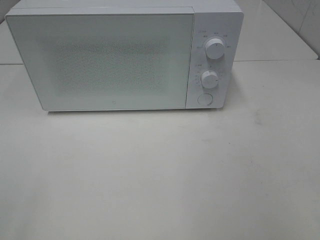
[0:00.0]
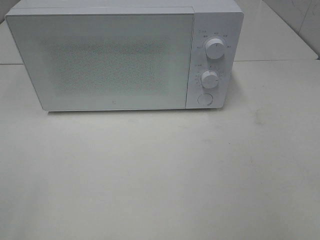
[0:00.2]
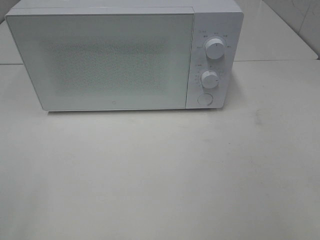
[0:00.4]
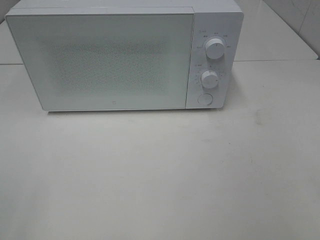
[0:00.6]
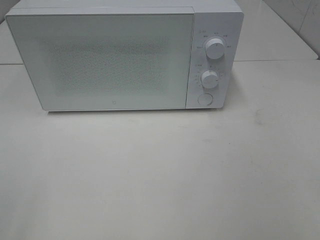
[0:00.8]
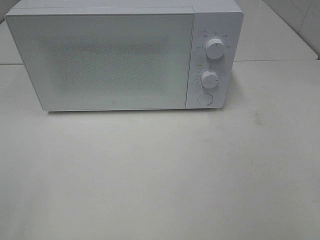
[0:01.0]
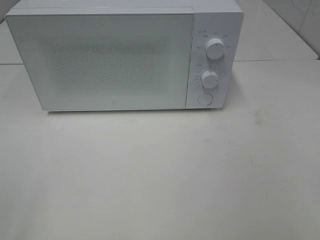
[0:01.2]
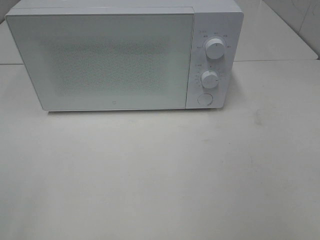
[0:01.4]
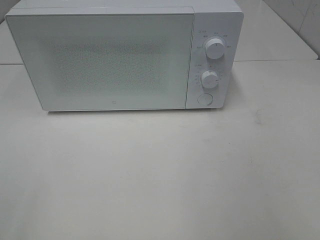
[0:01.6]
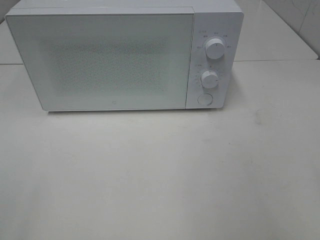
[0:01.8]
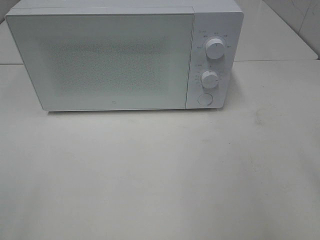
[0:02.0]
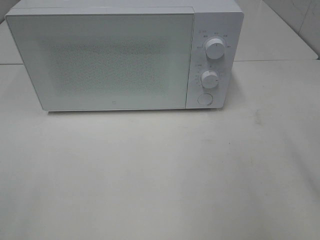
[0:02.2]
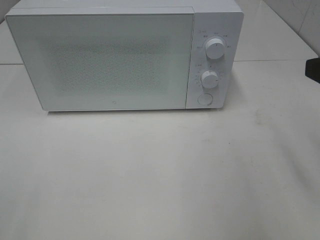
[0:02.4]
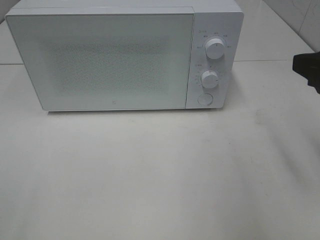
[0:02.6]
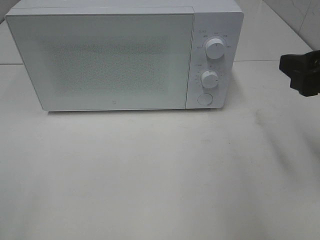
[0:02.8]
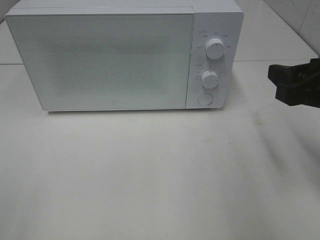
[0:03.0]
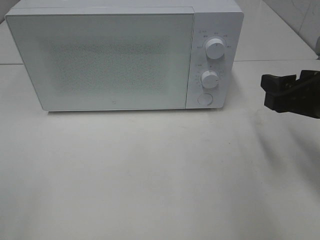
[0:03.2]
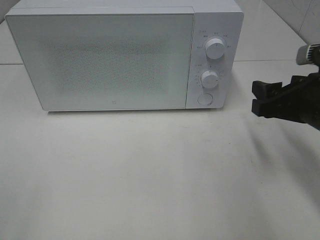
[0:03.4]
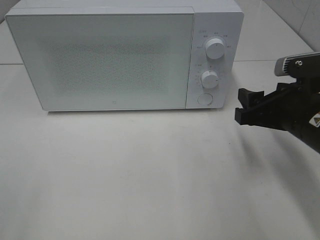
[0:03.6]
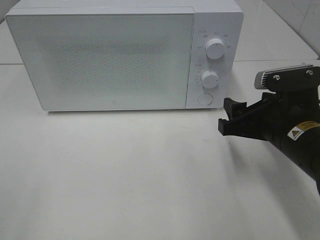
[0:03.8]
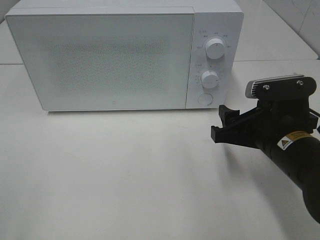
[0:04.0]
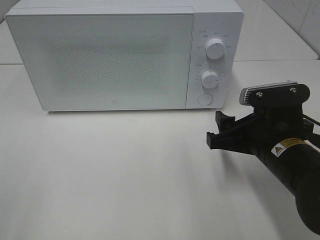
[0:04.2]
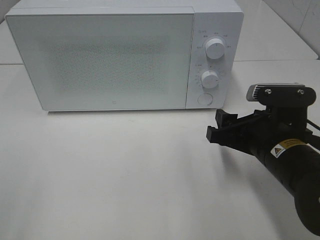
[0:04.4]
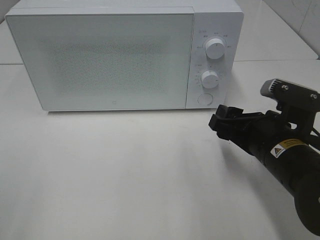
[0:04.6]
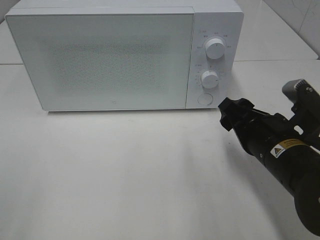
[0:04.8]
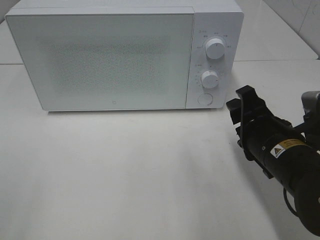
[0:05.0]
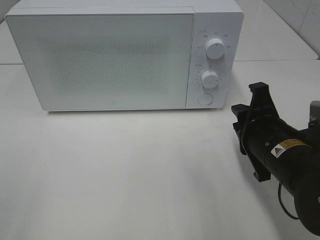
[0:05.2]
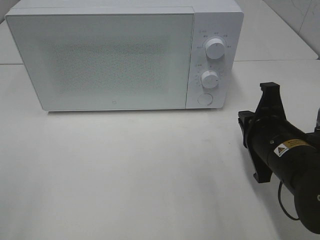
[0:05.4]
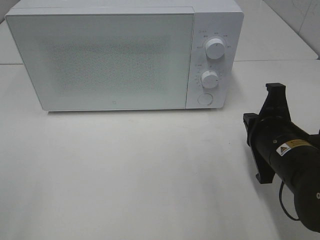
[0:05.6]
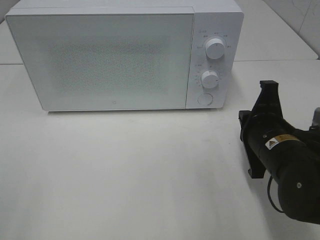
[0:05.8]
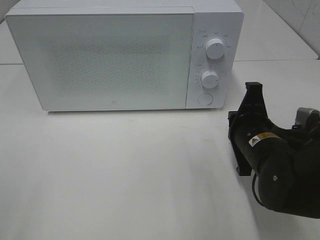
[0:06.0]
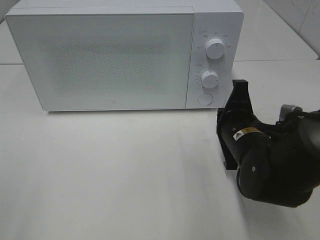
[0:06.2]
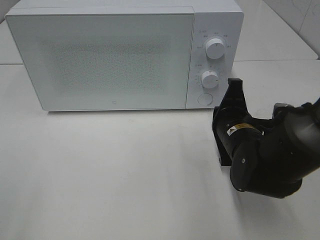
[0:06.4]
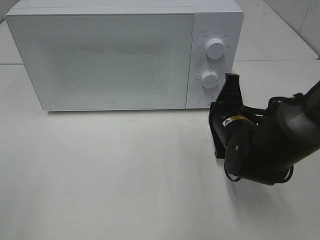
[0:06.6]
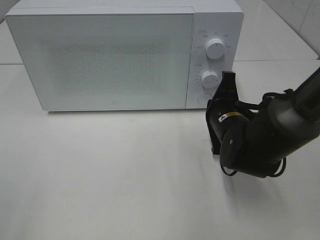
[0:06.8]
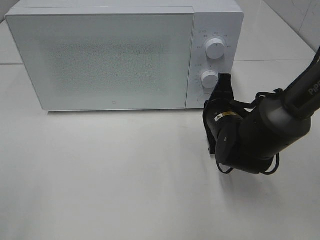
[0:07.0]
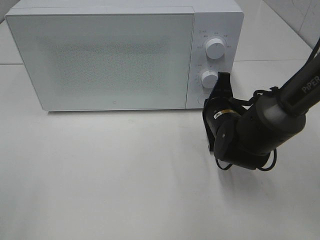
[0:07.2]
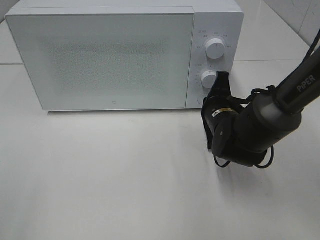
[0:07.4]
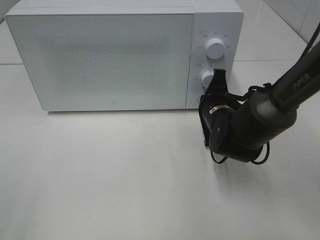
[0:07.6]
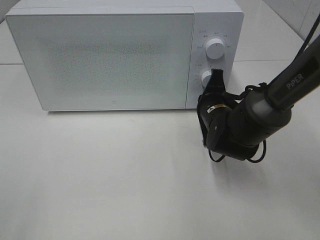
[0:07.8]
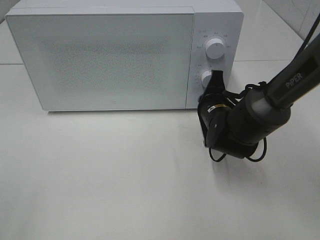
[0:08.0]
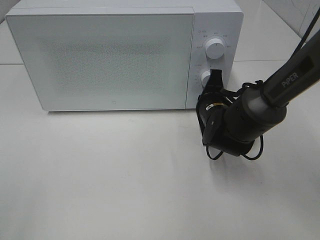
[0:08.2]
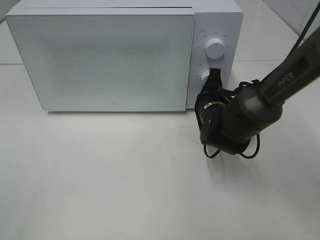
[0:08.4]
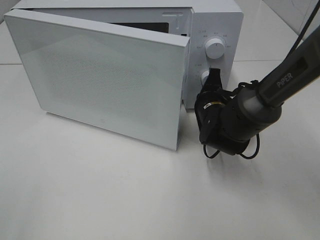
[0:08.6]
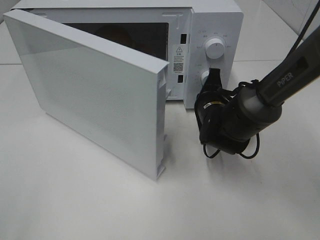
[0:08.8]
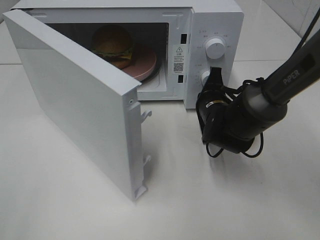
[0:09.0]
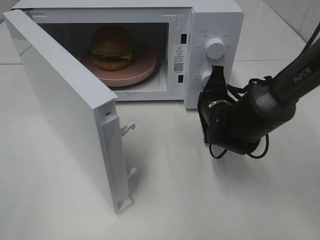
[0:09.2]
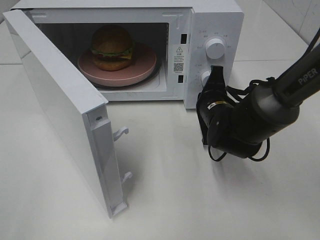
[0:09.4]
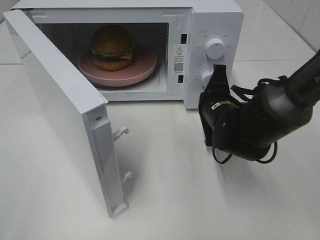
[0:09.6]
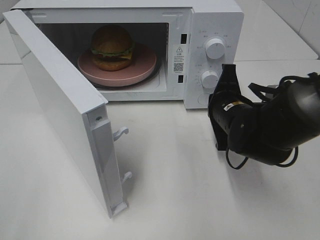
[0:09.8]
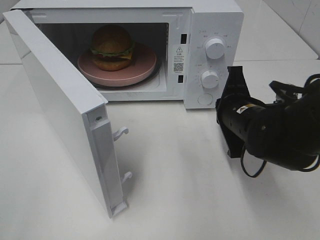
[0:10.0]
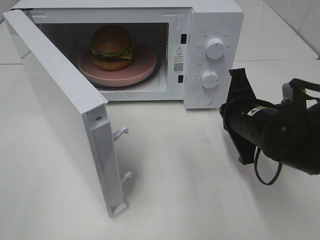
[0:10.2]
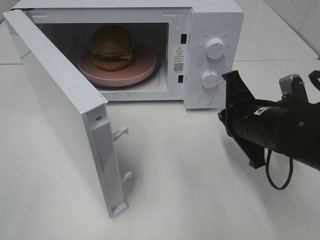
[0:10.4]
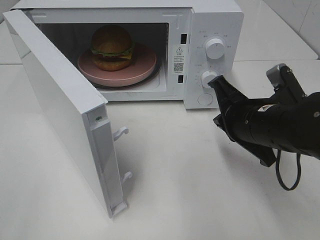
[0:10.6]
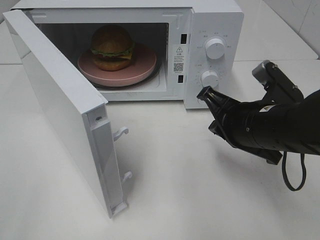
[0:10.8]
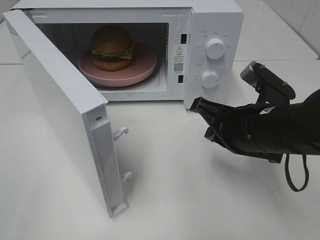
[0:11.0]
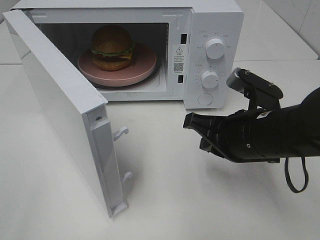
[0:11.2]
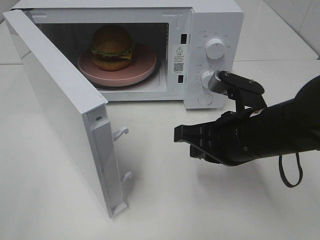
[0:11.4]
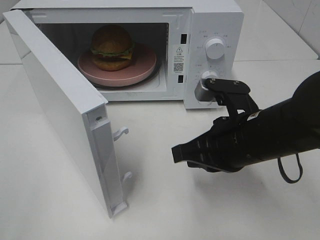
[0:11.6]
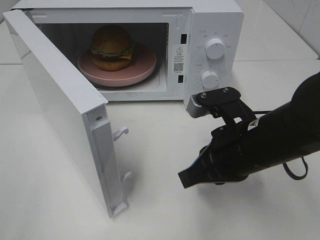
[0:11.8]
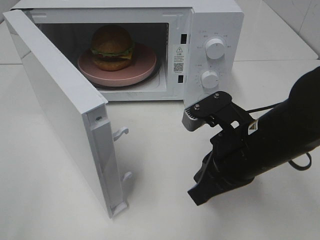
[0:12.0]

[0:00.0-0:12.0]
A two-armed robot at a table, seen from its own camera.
Task of the whole recording: Heat the burger.
Step, 0:00.0 to 0:09.4: Right hand: press the switch.
0:01.6 to 0:03.0: The right gripper is displaced forward and downward by some 20 cm.
0:03.0 to 0:04.4: The right gripper travels downward and to the left by roughly 10 cm.
0:04.4 to 0:06.0: The right gripper closes its fingers.
0:06.0 to 0:07.6: The right gripper shifts about 10 cm forward.
0:09.0 to 0:10.4: The right gripper heads backward and upward, covering roughly 10 cm.
0:10.4 to 0:12.0: The right gripper changes place by about 5 cm.

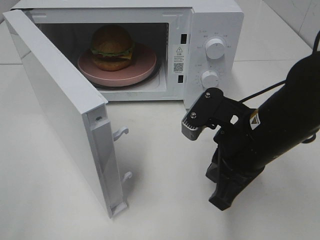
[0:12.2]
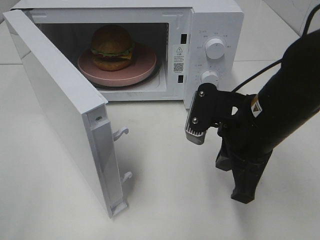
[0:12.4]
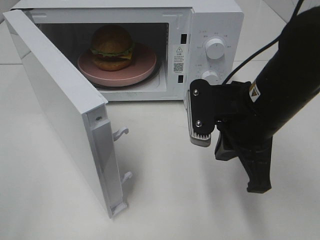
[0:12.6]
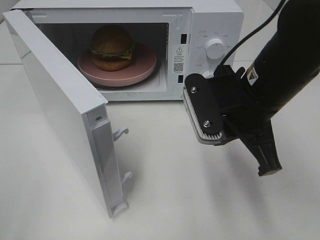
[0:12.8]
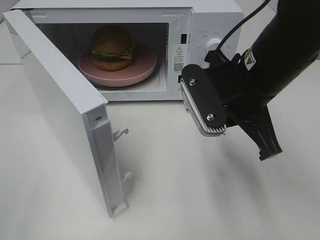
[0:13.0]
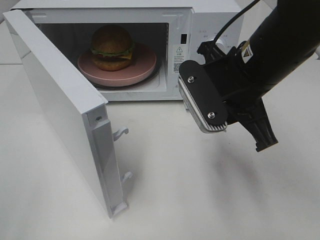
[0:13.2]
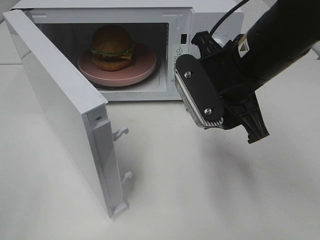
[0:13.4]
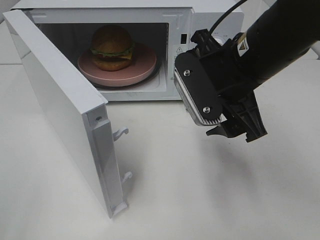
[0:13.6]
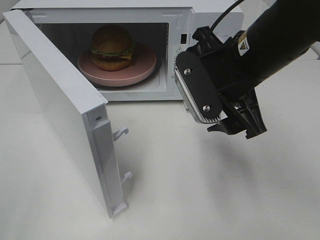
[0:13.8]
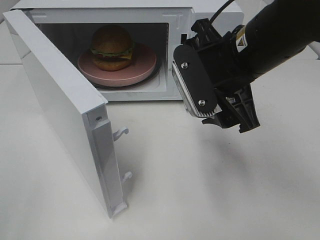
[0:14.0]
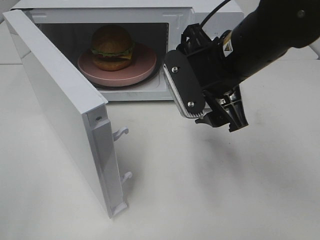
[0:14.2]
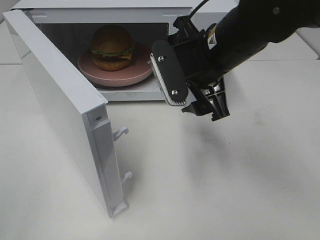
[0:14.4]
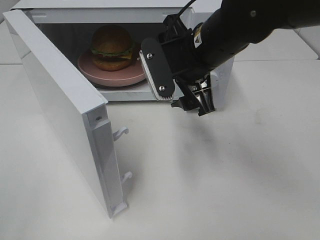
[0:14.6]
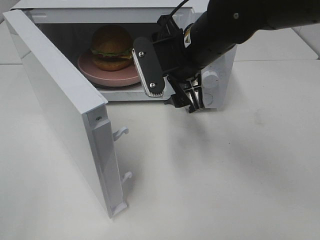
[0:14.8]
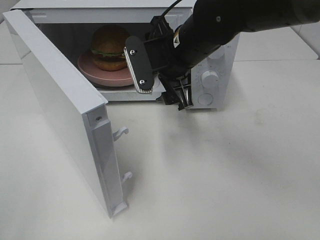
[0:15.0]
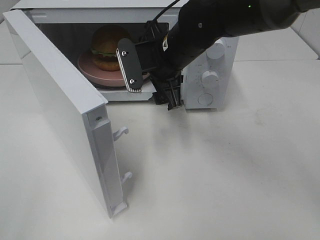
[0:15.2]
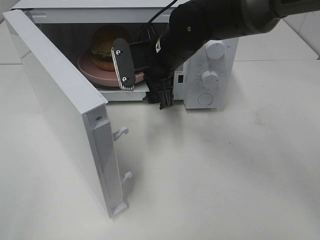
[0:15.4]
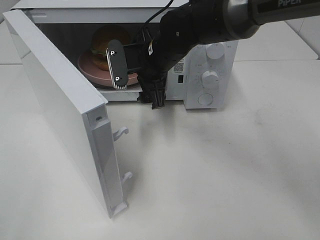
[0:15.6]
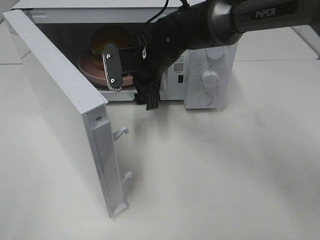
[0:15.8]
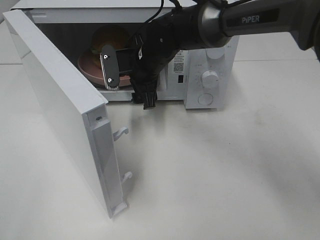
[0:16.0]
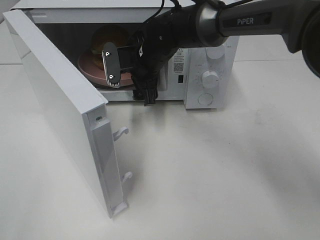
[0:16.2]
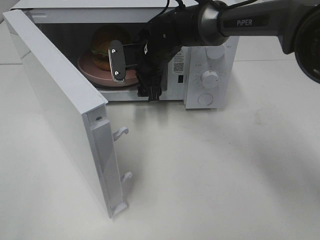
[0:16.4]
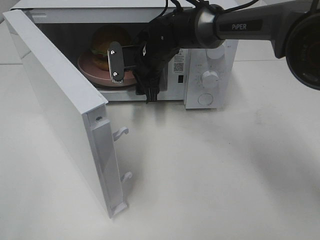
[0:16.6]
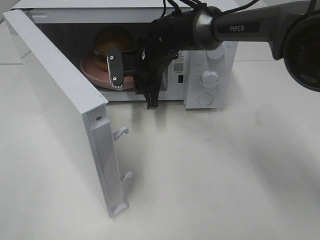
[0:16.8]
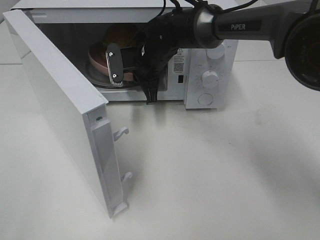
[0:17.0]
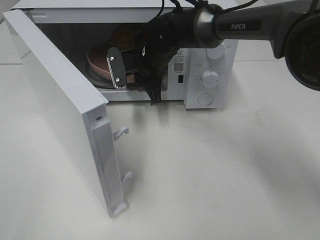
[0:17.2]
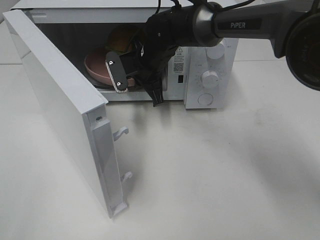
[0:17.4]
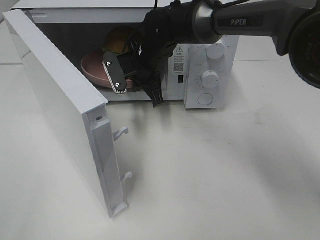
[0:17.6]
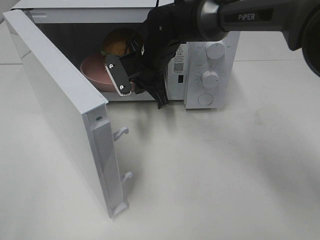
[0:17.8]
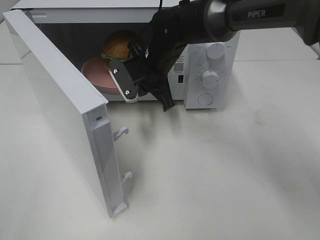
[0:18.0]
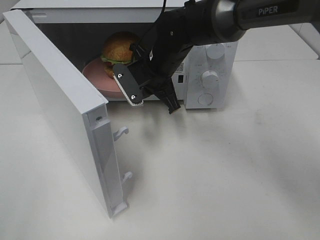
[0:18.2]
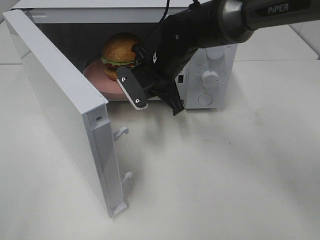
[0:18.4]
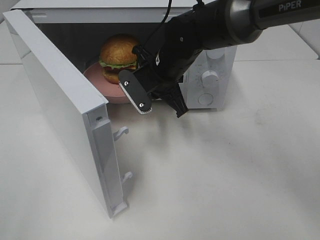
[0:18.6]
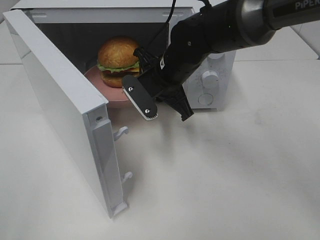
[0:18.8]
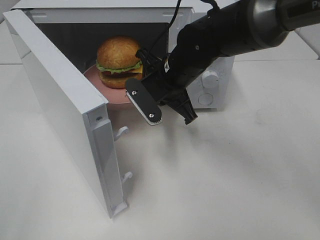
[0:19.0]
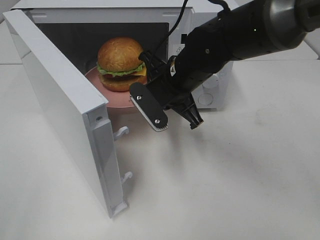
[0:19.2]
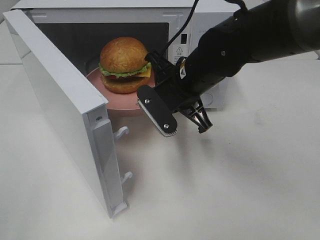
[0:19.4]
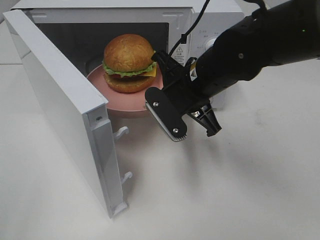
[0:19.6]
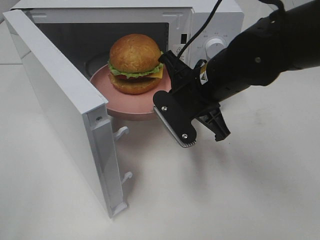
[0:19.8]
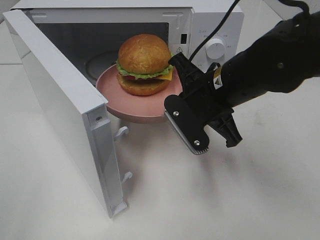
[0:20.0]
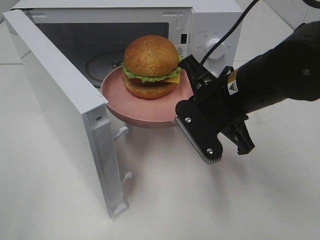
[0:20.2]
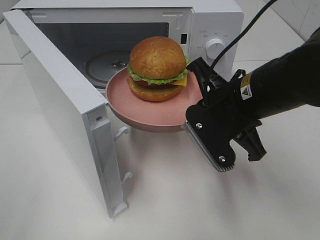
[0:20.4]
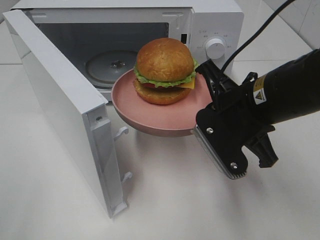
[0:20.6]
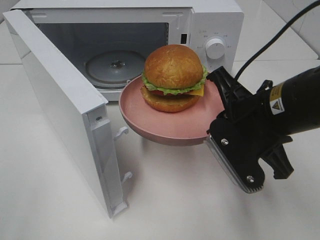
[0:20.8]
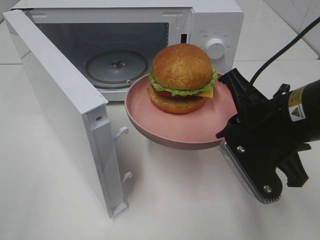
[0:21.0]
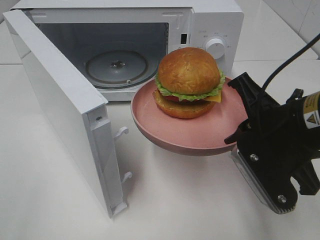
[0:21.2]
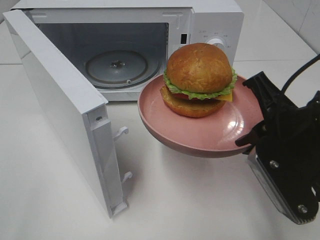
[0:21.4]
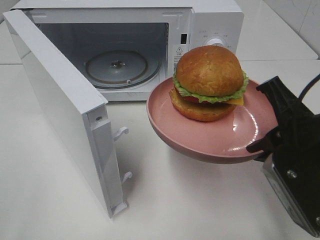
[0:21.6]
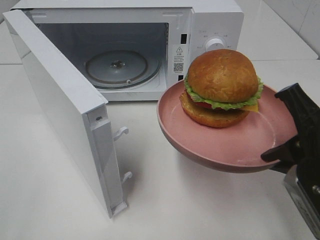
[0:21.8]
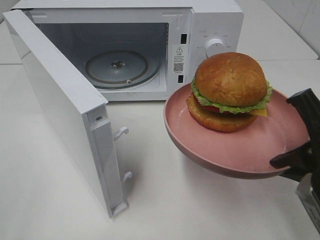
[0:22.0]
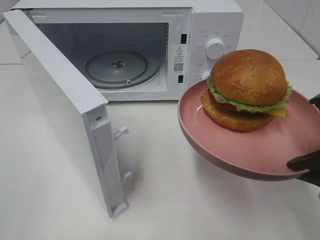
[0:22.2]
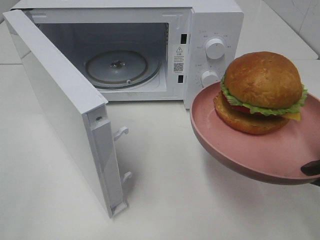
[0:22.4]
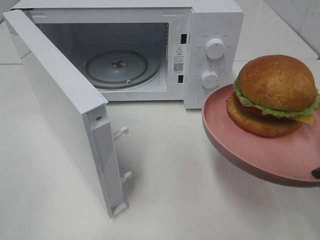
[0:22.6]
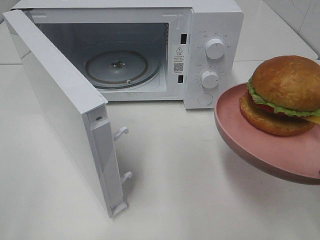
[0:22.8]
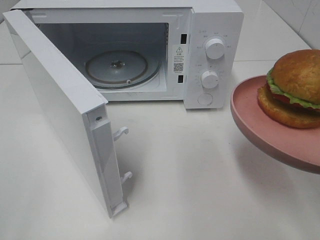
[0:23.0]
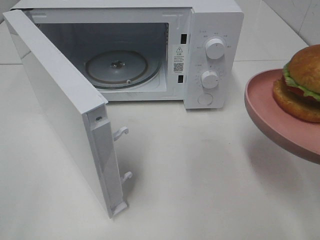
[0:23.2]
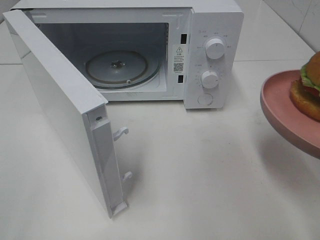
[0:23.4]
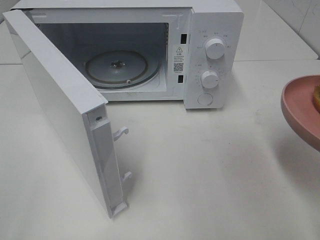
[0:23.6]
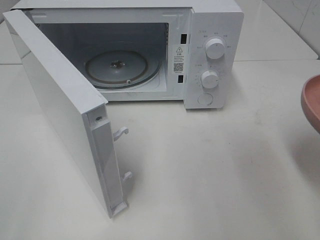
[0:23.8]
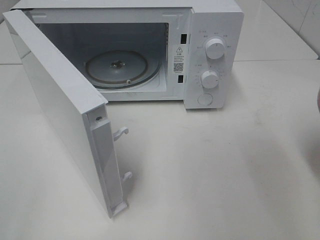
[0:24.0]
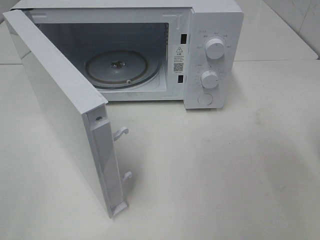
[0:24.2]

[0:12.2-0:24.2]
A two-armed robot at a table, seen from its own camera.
Task of the whole recording: Heat the burger.
Step, 0:12.2 to 0:16.8: Right hand: grab the plate with the hamburger.
0:12.2 to 0:13.8: The right gripper travels upward by some 5 cm, and opens up.
0:13.8 to 0:15.2: The right gripper goes some 15 cm forward and to the left.
0:15.2 to 0:16.6: The right gripper goes roughly 10 cm forward and downward.
0:16.6 to 0:18.2: The right gripper ends up approximately 5 cm from where it was, and closes.
0:18.2 to 0:19.8: The right gripper heads backward and to the right, covering some 15 cm.
0:19.8 to 0:21.2: The right gripper moves backward and to the right, approximately 15 cm.
0:21.2 to 0:22.6: The right gripper travels backward and to the right by approximately 10 cm.
0:22.6 to 0:24.2: The right gripper travels to the right by some 5 cm.
